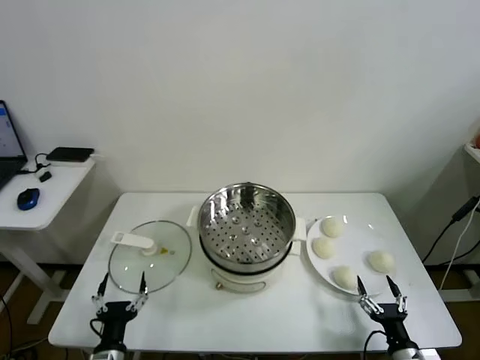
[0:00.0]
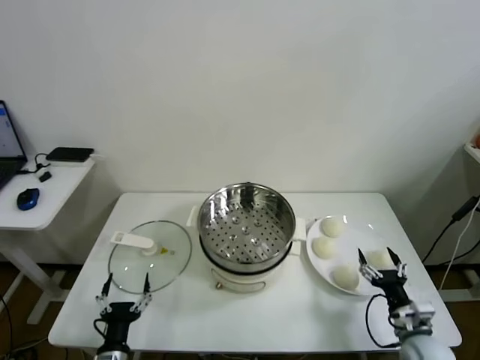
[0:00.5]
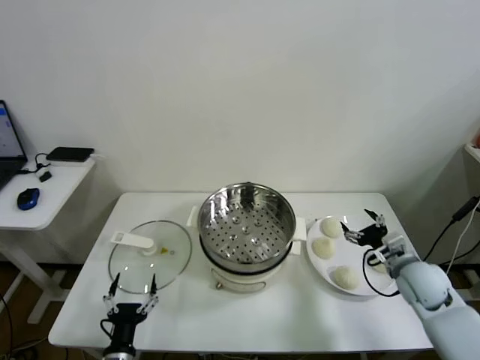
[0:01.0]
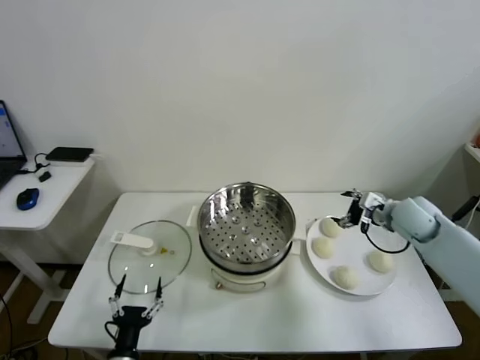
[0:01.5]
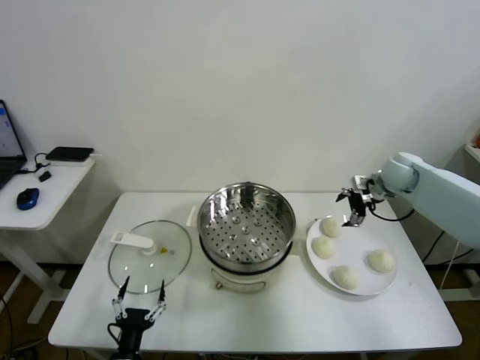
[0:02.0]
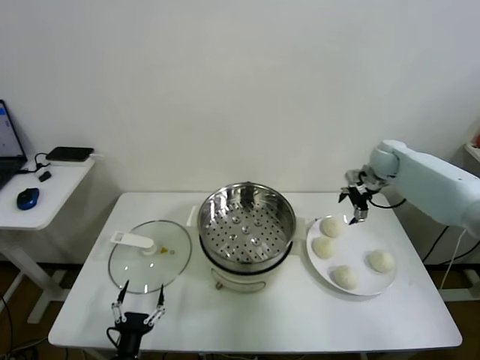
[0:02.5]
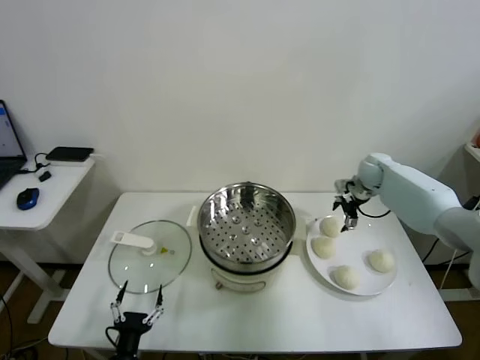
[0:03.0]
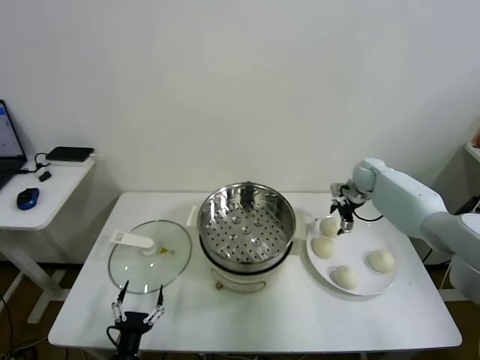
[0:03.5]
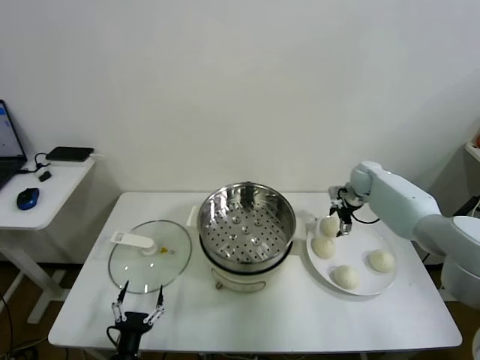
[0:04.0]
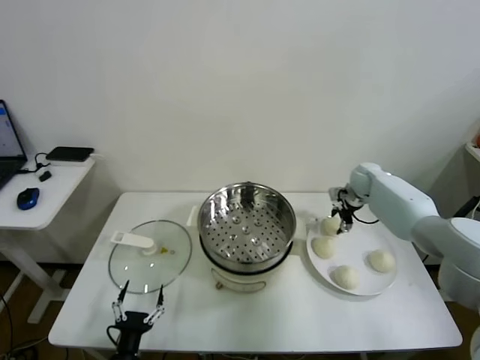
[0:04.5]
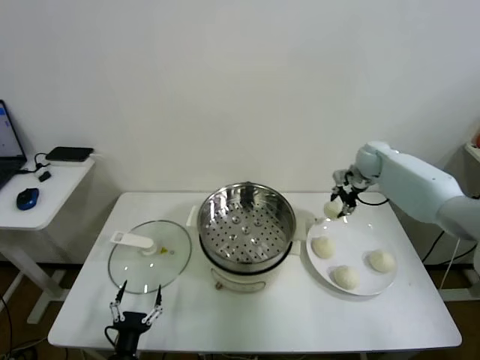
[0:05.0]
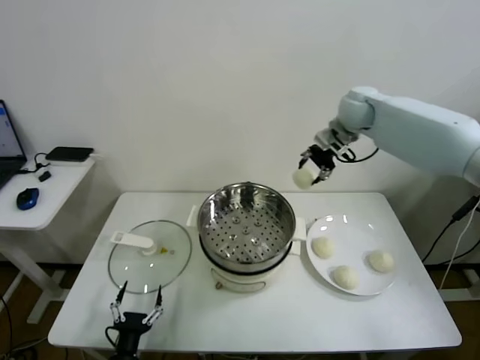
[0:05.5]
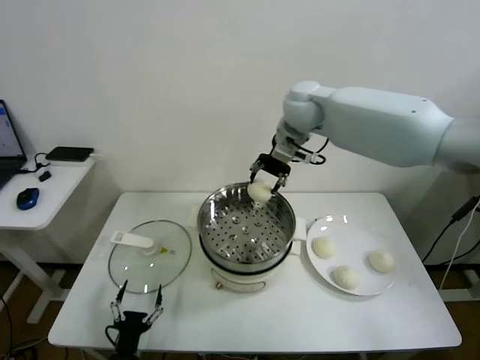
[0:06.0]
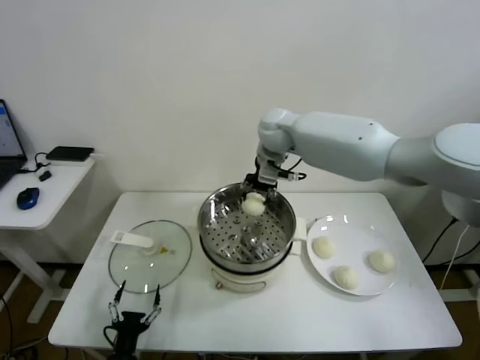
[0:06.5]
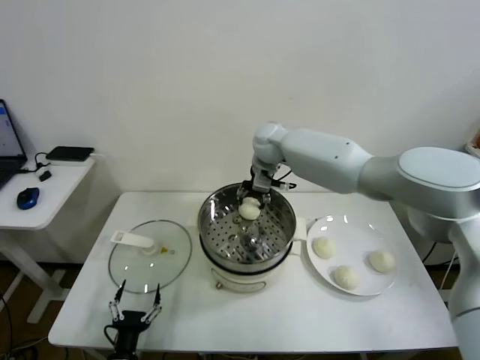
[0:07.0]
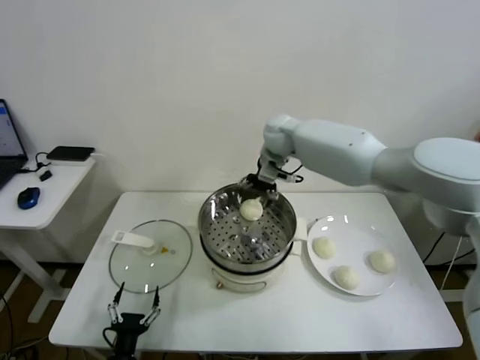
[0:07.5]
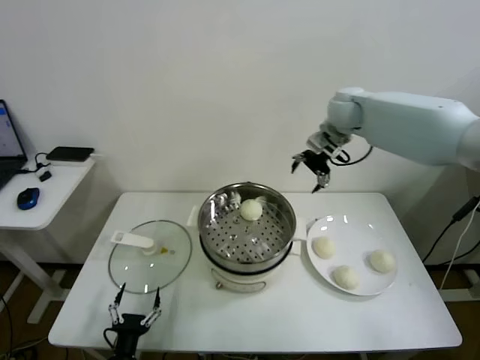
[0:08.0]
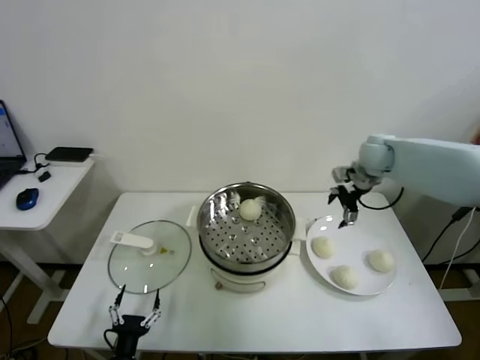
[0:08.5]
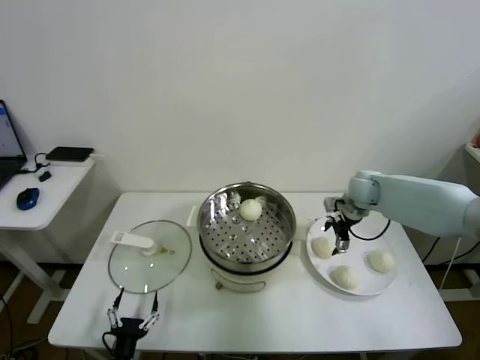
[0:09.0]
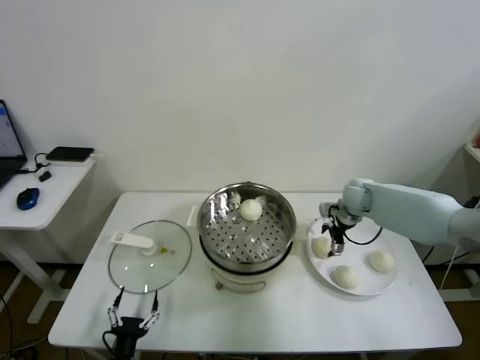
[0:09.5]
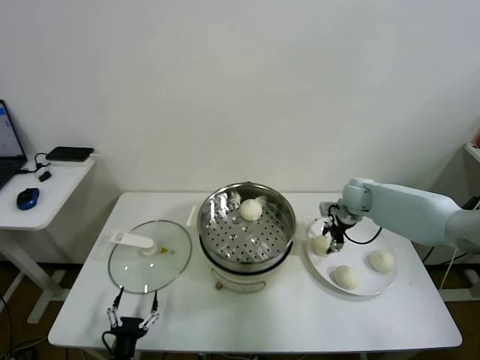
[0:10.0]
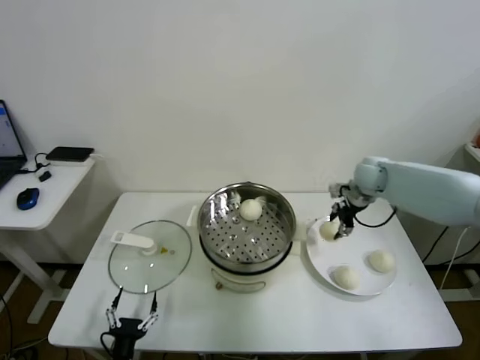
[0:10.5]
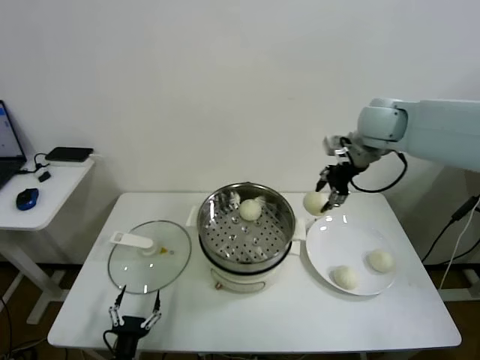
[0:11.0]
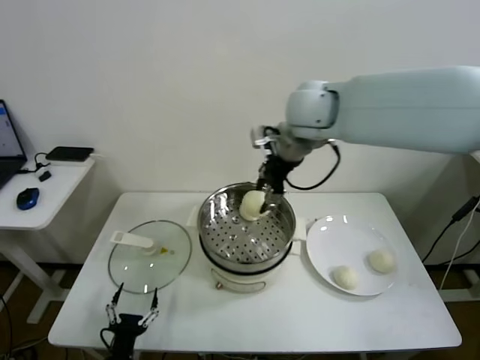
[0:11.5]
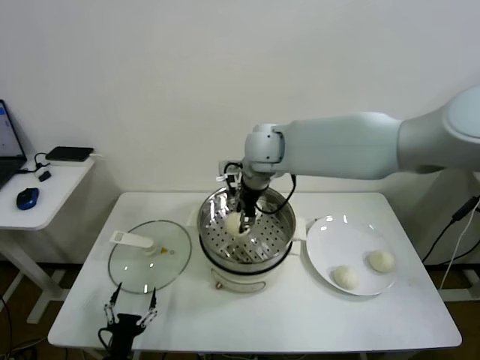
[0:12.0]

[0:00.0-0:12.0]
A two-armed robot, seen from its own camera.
Task of the whole recording: take steamed baozi put them in steamer.
Step, 0:00.0 to 0:04.0: Grasp the baozi in the plate with right gripper.
Step, 0:04.5 to 0:07.5: Place the baozi on the steamer with right gripper.
Step, 0:08.0 to 0:10.0: Grasp the baozi in the plate with right gripper.
0:02.0 to 0:04.0: The right gripper shifts about 10 cm downward and forward.
0:04.0 to 0:06.0: The right gripper is displaced to the left and upward by about 35 cm, and closes.
0:06.0 to 0:08.0: The right gripper moves to the right, some 15 cm, and opens up.
0:08.0 to 0:10.0: The right gripper travels downward by roughly 20 cm, and closes.
0:10.0 to 0:12.0: The right gripper moves to the left and upward, about 35 cm.

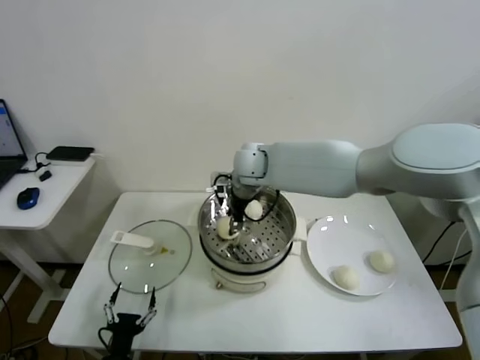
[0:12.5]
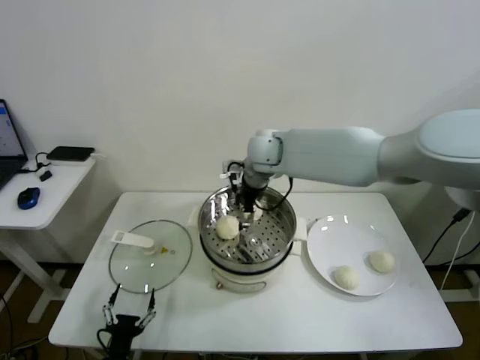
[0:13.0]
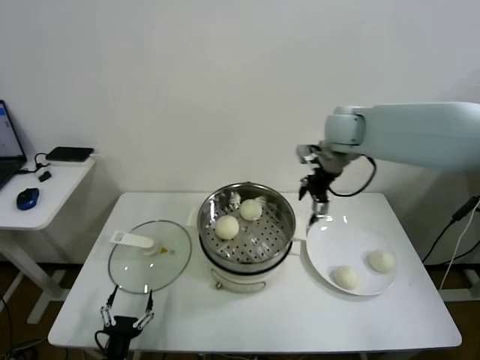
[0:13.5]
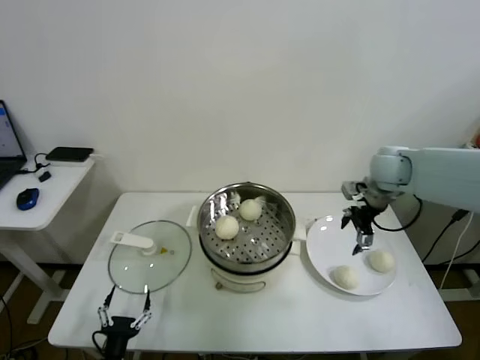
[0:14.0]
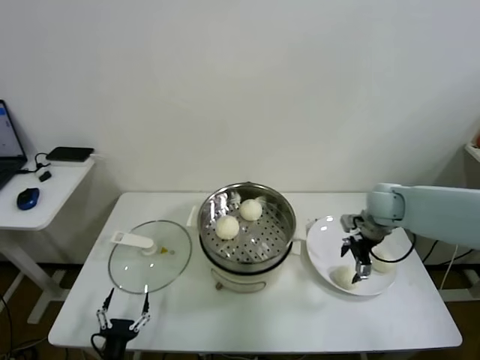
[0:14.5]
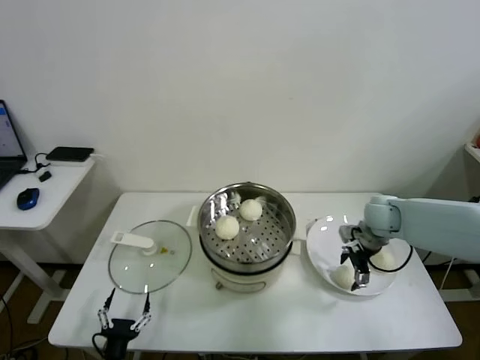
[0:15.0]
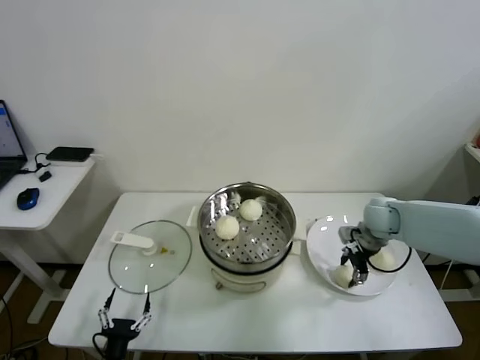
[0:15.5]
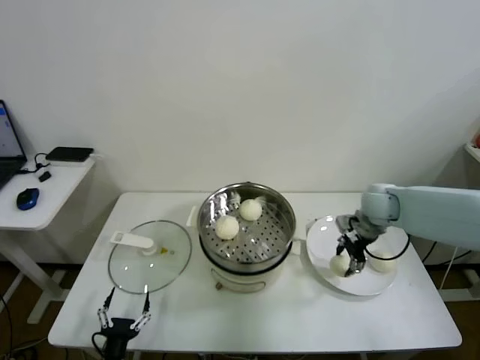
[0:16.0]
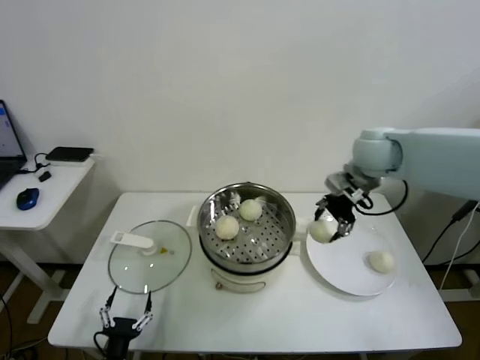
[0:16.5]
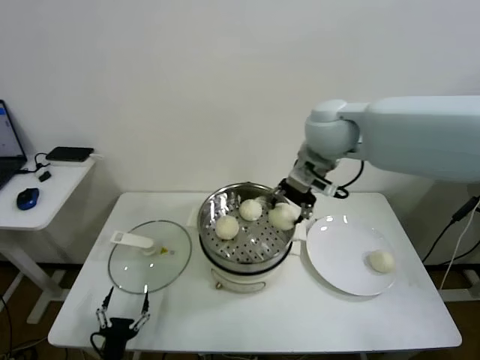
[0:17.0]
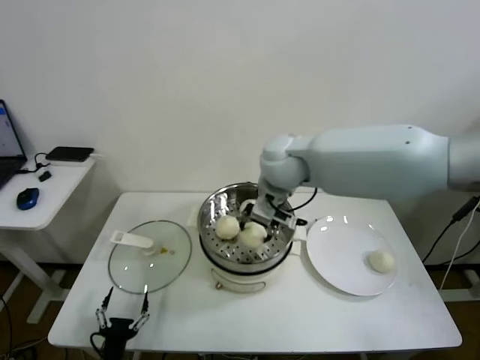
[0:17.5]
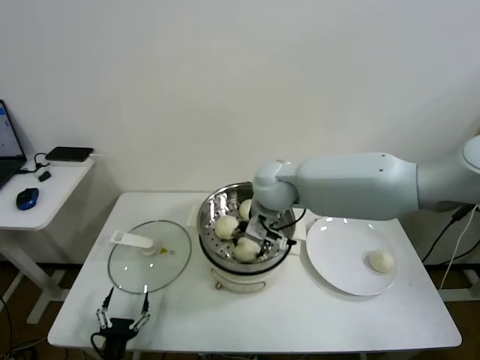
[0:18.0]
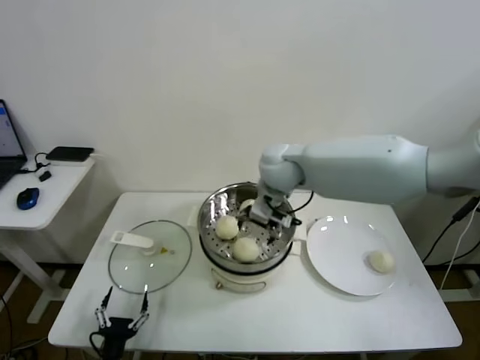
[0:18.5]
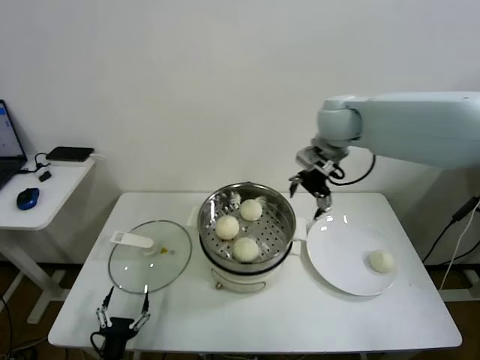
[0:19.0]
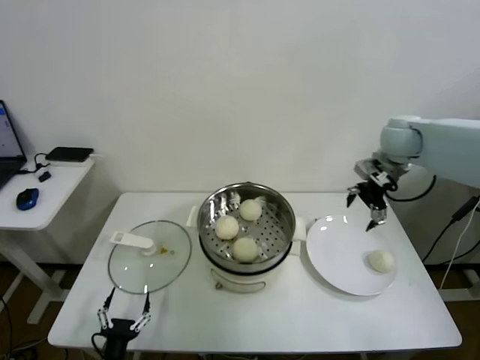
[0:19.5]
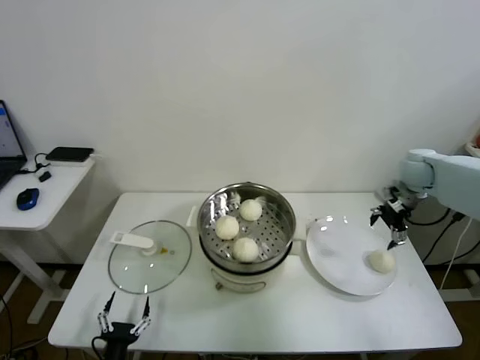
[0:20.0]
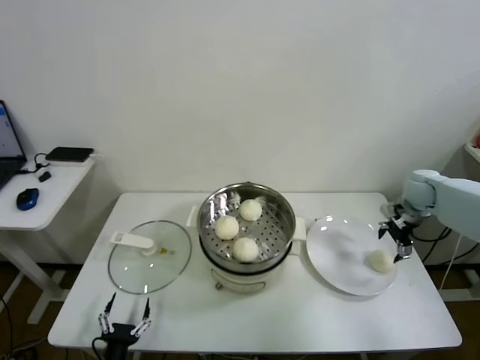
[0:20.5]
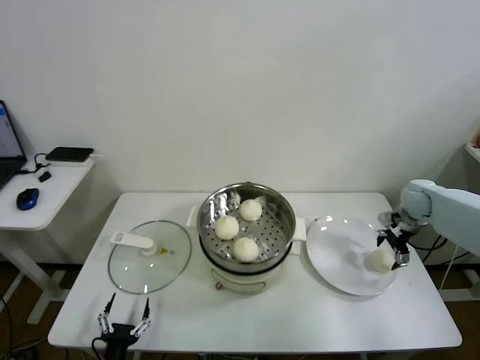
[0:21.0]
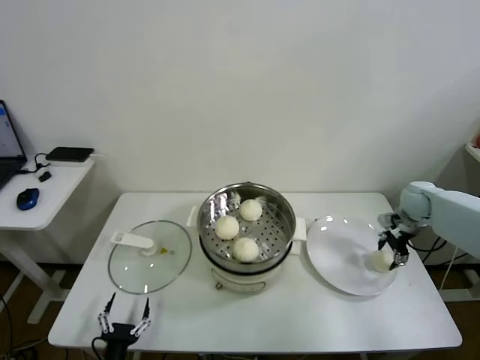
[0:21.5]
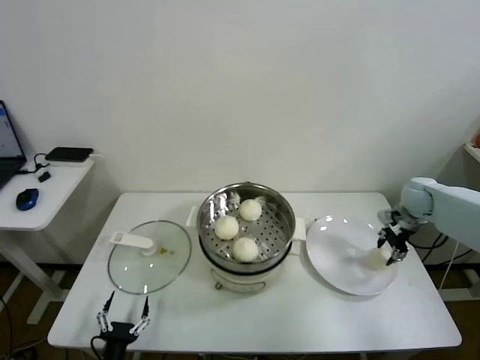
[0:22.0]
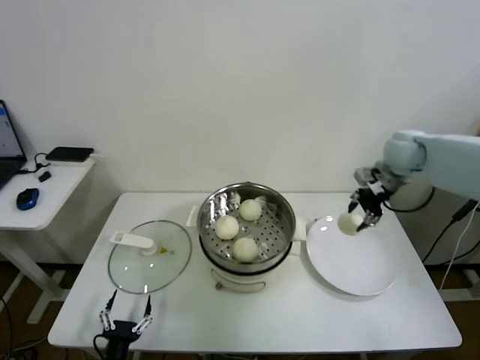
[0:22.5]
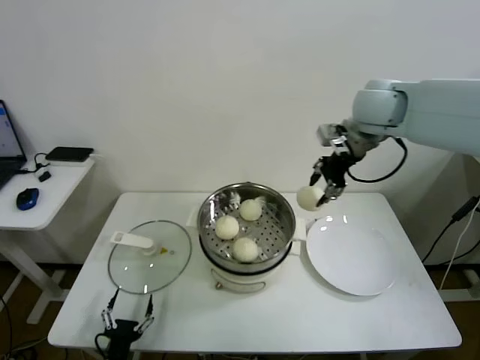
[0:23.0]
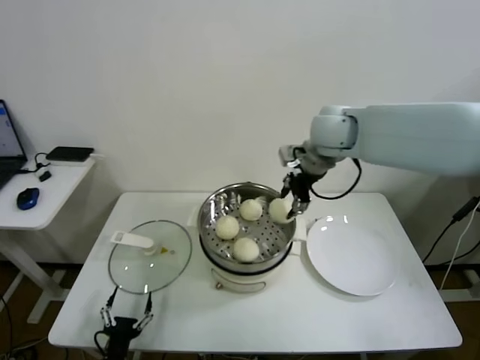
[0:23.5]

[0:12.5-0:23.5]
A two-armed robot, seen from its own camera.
Task of the whole recording: take steamed baozi put them in steamer.
Step, 0:13.0 to 0:15.5: Grasp the baozi in the plate with right gripper.
Step, 0:16.0 to 0:18.0: Place the baozi on the steamer with right gripper.
Step, 0:18.5 to 0:21.5: Grasp the baozi in the plate with right gripper.
0:12.5 to 0:14.5: The right gripper is displaced to the right by some 30 cm, and opens.
0:14.5 to 0:16.0: The right gripper closes its fingers.
0:16.0 to 0:18.0: The right gripper heads to the left, covering approximately 25 cm.
0:18.0 to 0:20.0: The right gripper shifts about 35 cm to the right, and opens up.
0:20.0 to 0:21.5: The right gripper heads downward, covering some 10 cm, and closes up.
0:21.5 to 0:23.5: The right gripper travels to the left and upward by approximately 35 cm, and closes.

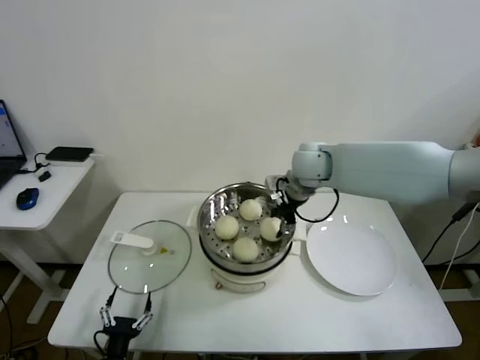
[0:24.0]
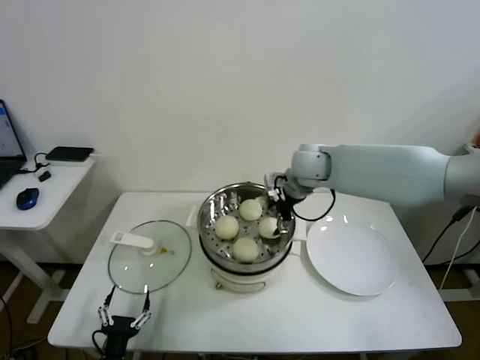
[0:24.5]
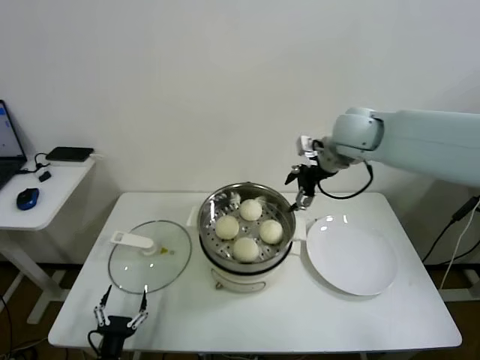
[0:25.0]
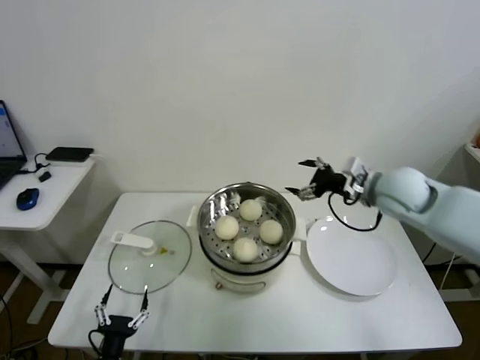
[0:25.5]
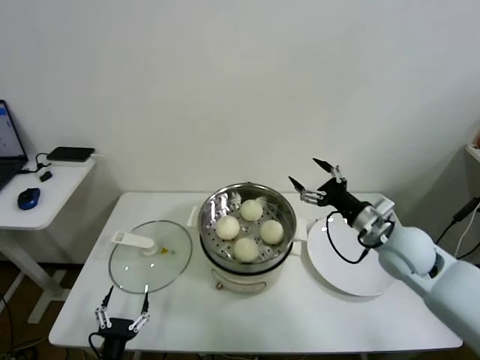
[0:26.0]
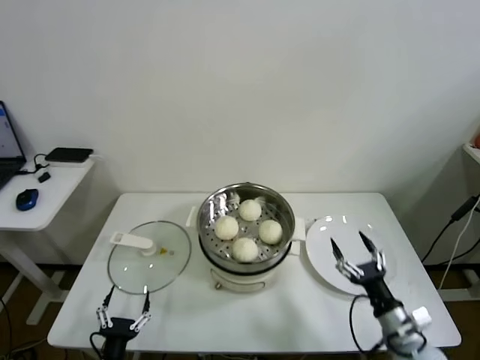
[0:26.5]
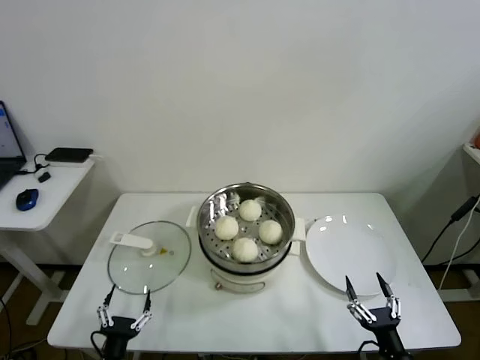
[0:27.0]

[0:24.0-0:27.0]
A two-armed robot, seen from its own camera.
Task of the whole recording: take steamed baozi put them in steamer.
0:24.0 to 0:25.5: The right gripper moves to the right and backward, roughly 15 cm, and opens up.
0:25.5 to 0:27.0: The right gripper moves backward and downward, approximately 50 cm.
